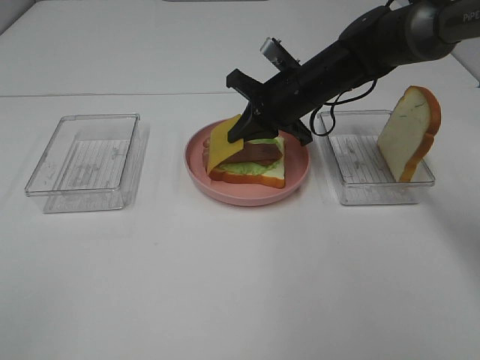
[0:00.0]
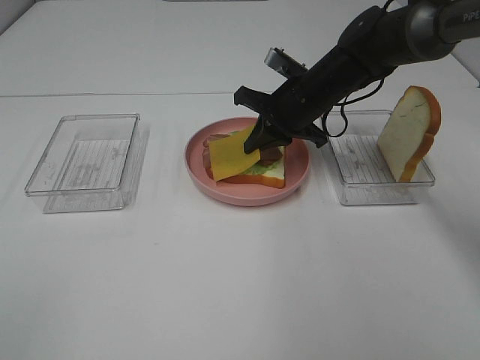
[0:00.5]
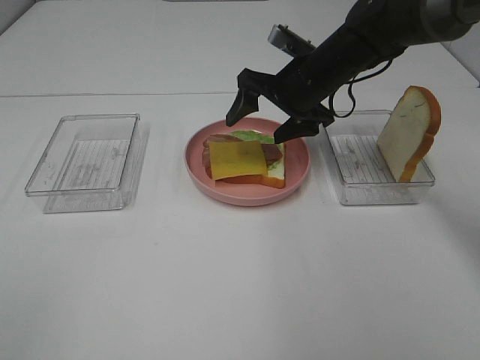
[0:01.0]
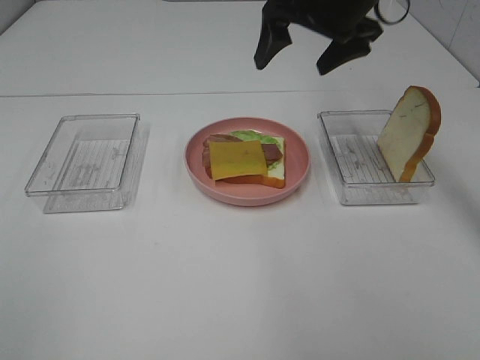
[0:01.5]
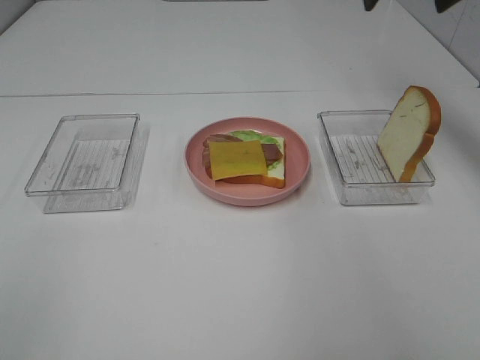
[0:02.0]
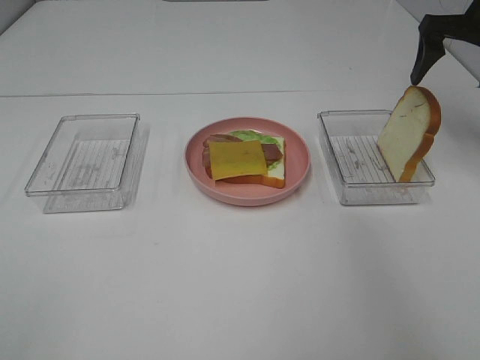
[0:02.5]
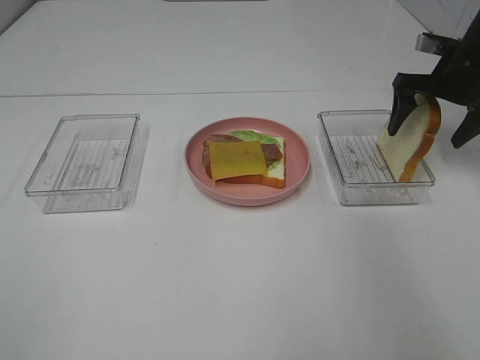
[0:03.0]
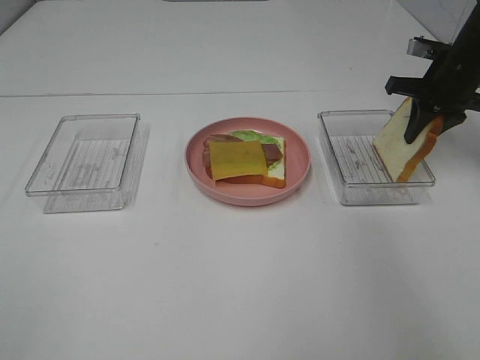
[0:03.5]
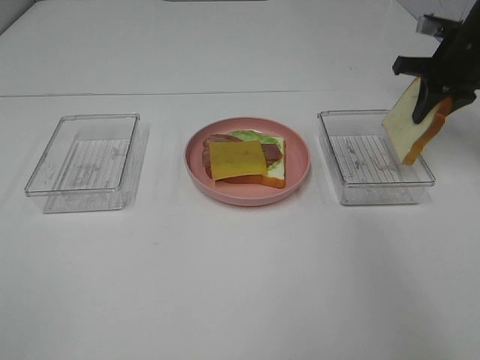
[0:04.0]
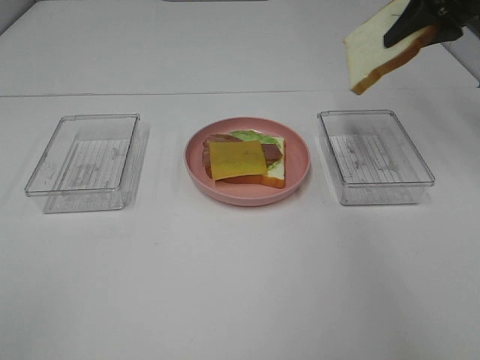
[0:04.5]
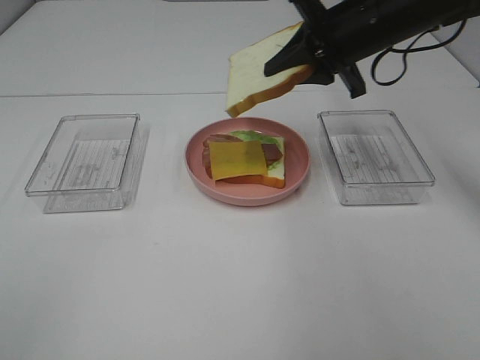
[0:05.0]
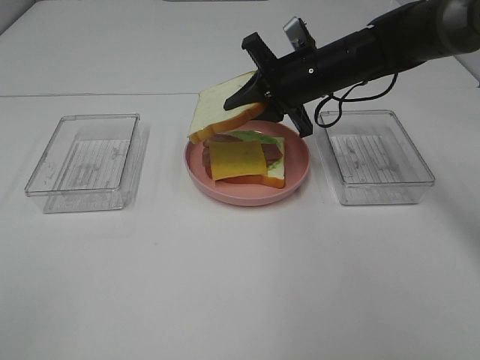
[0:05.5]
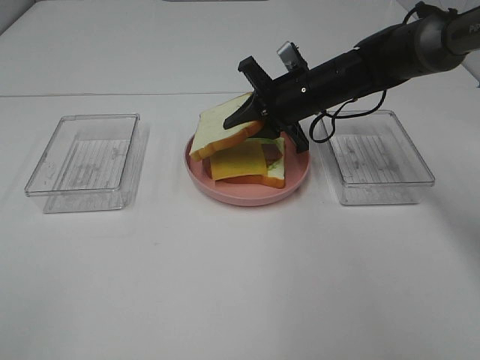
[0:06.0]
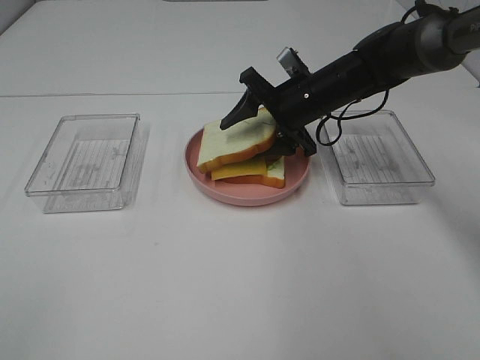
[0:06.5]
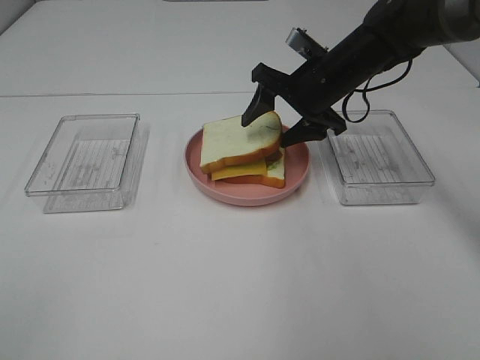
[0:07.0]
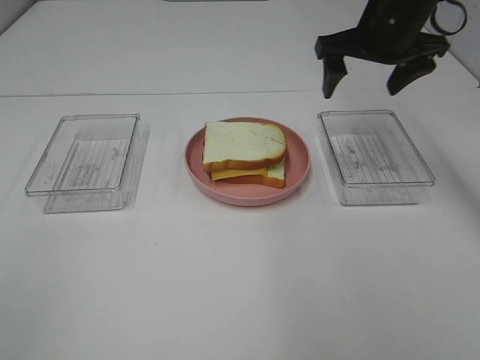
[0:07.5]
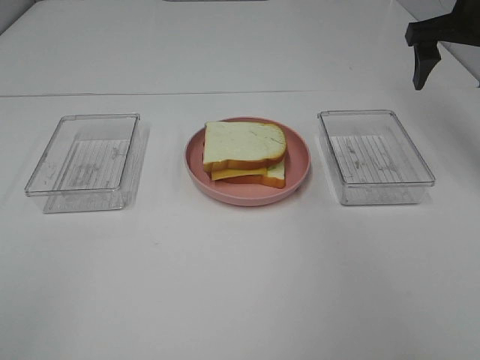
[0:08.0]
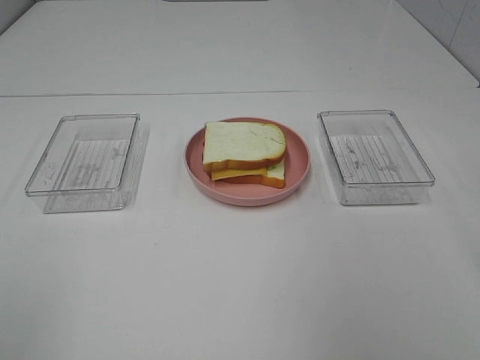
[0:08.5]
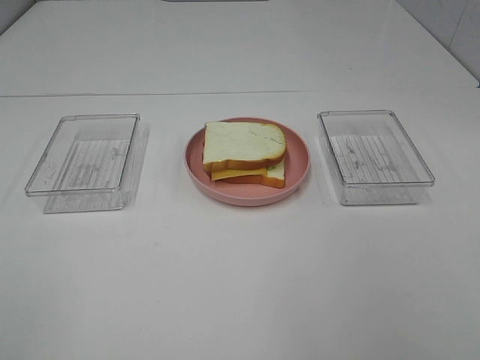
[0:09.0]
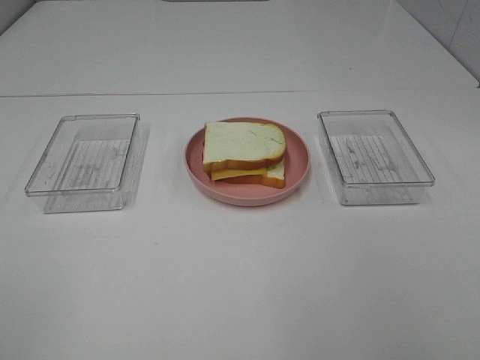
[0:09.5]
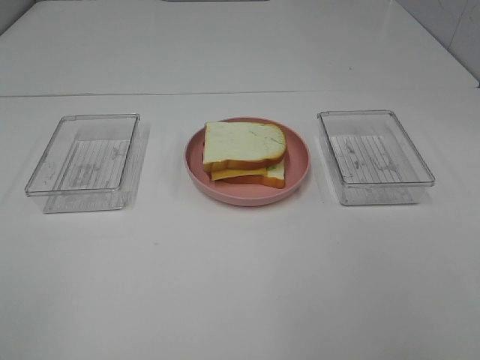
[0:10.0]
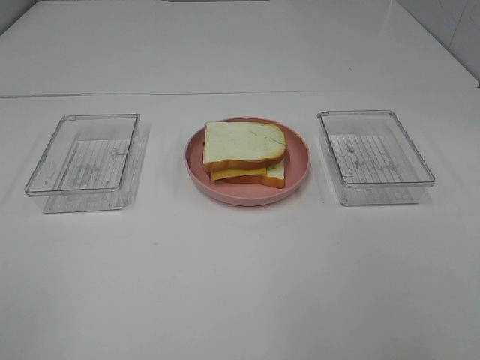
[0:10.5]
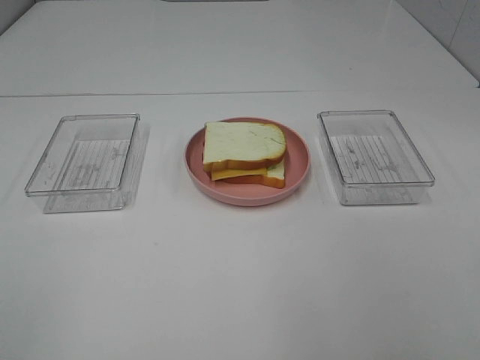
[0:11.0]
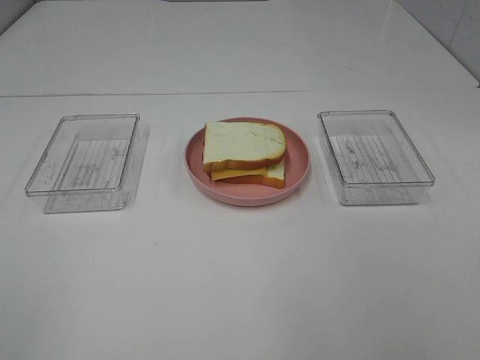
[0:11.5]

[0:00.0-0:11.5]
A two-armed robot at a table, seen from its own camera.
Task of the whole recording: Make sandwiches.
Step, 1.5 to 3.5 s: Right hand:grab the bread slice.
Step, 4.0 to 7.0 s: Right hand:place the bread slice on the cheese slice.
0.0 to 2.0 s: The right gripper shifts about 25 cm upward and to the right, and opens.
2.0 to 4.0 s: The right gripper heads downward and to the right, covering roughly 15 cm, and closes up.
4.0 to 6.0 s: The right gripper goes some 20 cm to the left.
6.0 to 7.5 s: The right gripper moves upward and to the right, about 15 cm, and opens up.
7.5 to 9.5 s: The right gripper is displaced backward by about 40 cm.
9.5 to 11.5 s: Both grippers stay about where they are.

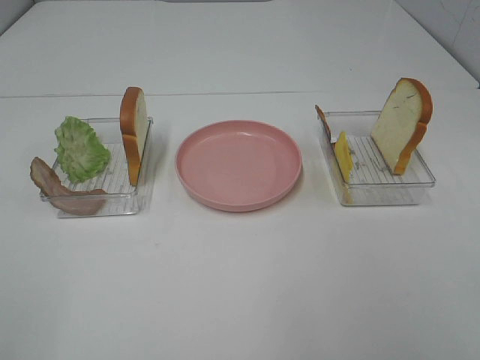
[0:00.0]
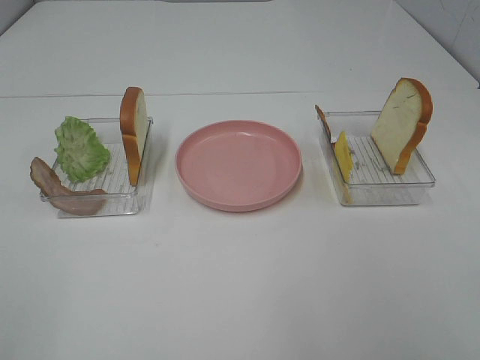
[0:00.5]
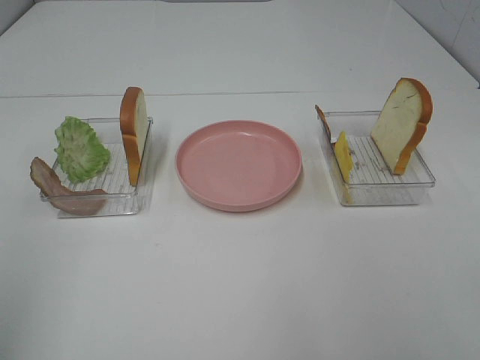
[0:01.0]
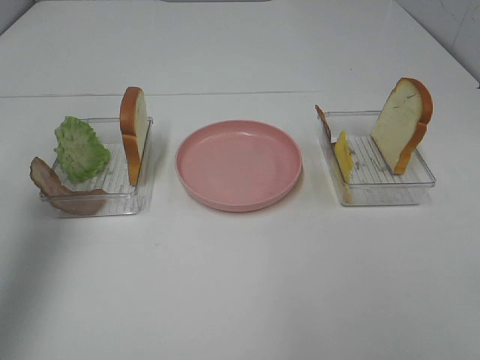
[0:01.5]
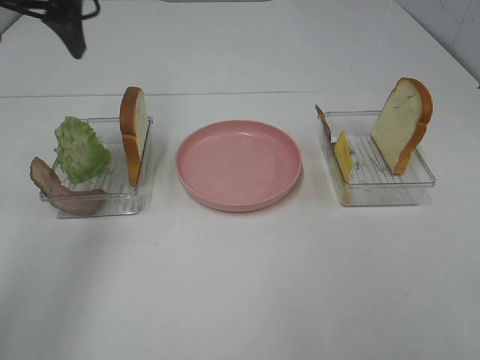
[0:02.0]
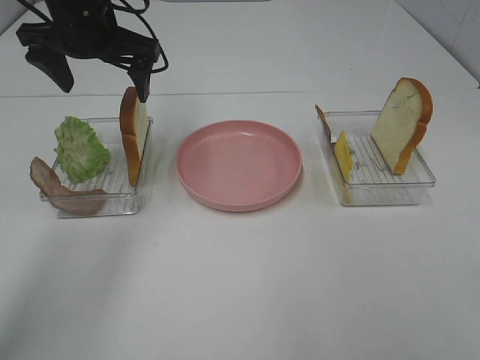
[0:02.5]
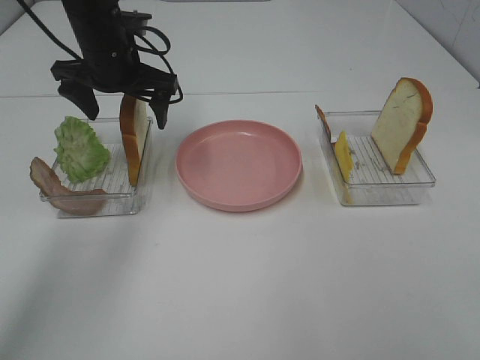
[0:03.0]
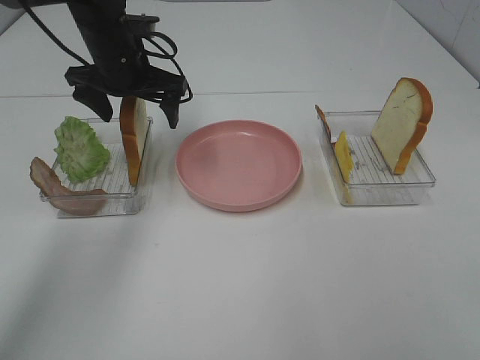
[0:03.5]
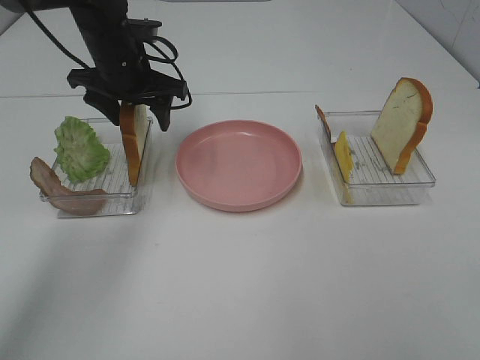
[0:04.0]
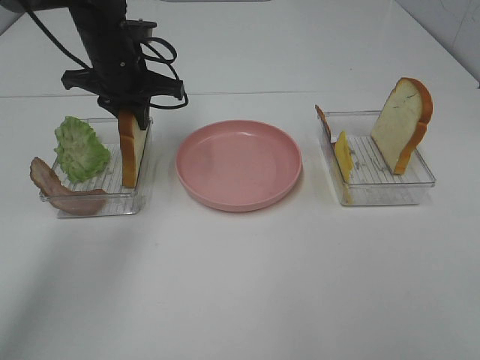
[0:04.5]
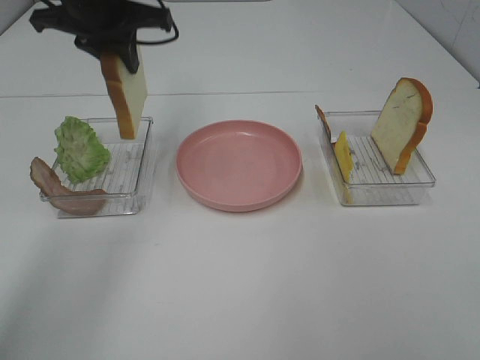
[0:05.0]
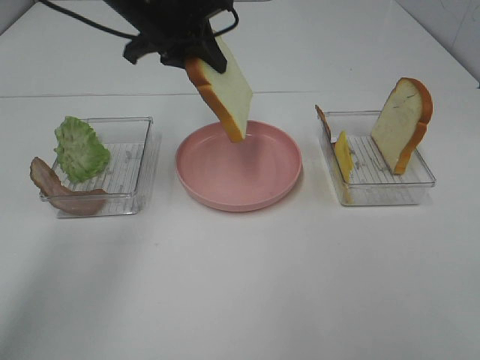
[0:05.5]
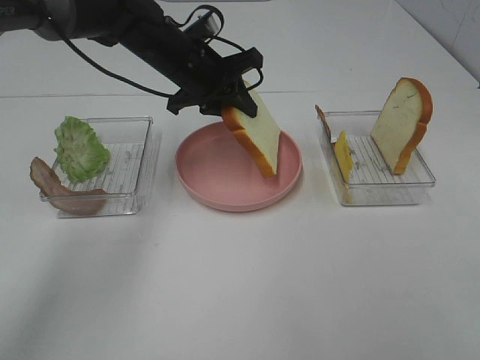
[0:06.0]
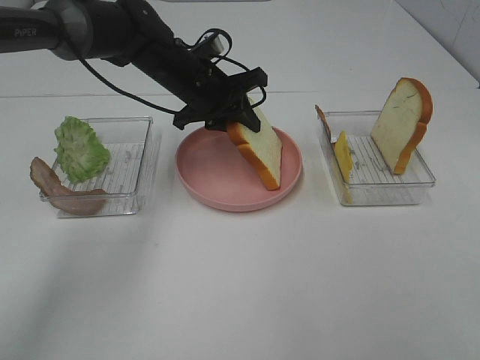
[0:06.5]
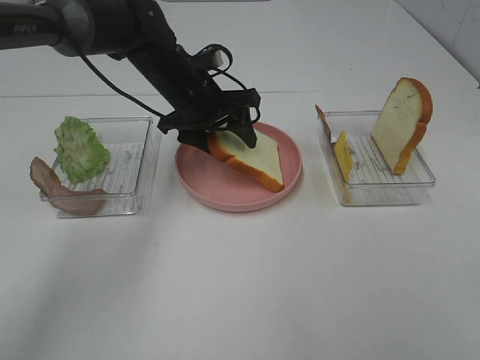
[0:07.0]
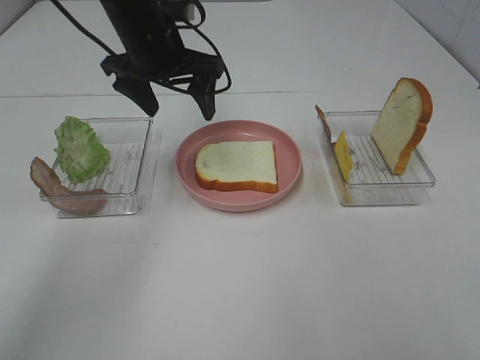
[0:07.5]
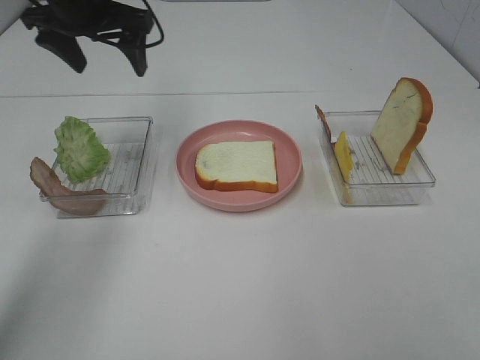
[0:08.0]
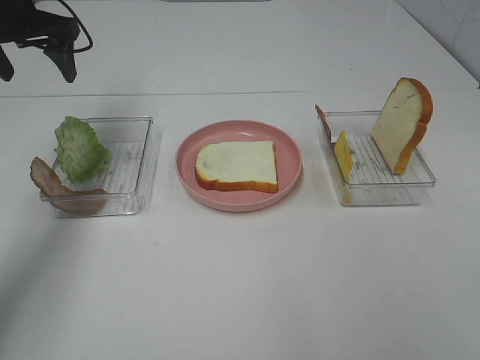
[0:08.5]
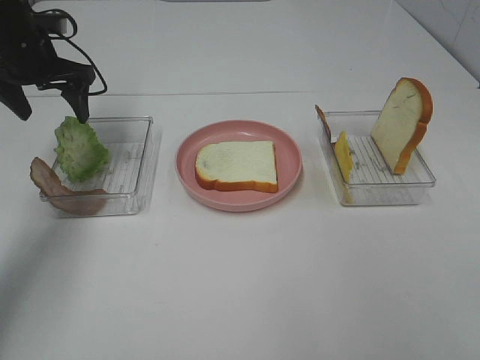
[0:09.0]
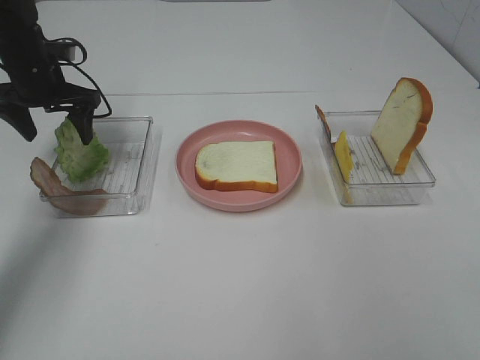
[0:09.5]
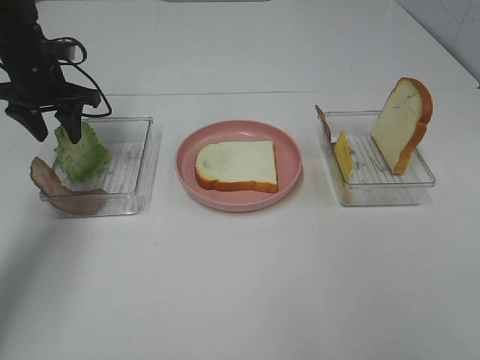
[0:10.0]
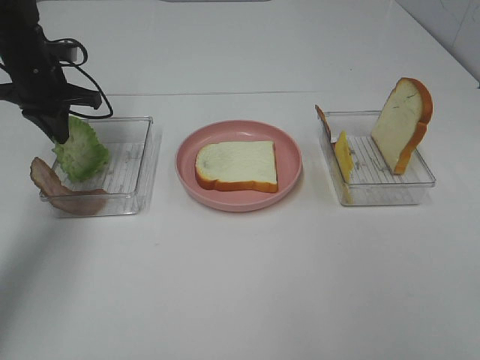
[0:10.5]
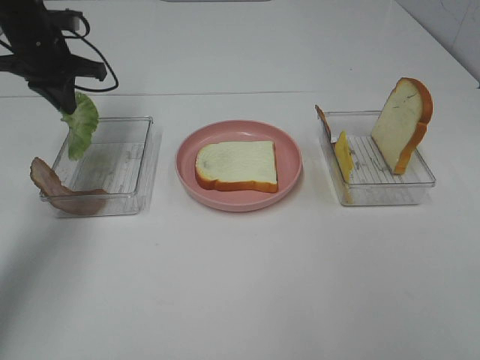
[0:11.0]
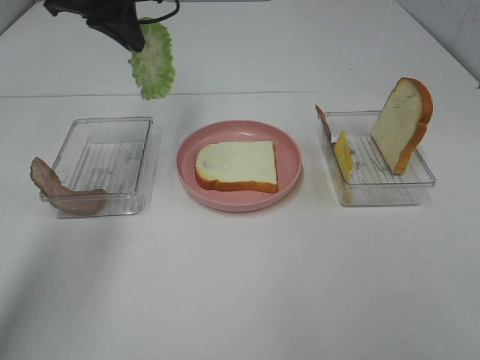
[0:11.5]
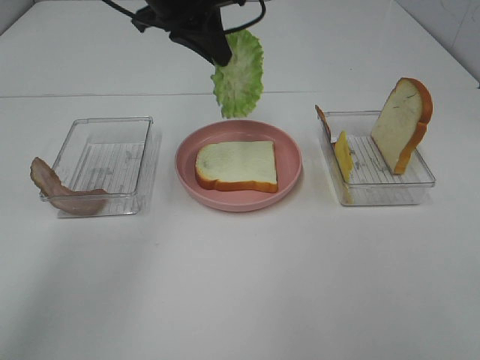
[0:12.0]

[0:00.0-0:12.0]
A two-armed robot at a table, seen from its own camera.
Task of the whole recording: Make sandwiches.
Step, 0.0 to 4.0 s: Left hand:grab the bread slice.
Step, 4.5 to 7.0 s: Left hand:place the bread slice on the plate.
Step, 7.5 to 10.5 s: Left hand:grab the lettuce slice.
0.0 to 2.0 s: The left gripper heads forward, covering approximately 40 cm.
2.0 to 4.0 s: The left gripper moves downward, to the right and forward, roughly 15 cm.
4.0 to 6.0 s: The left gripper travels to the right by approximately 10 cm, goes upward and returns, roughly 10 cm each way, and closes up.
6.0 to 8.0 s: The left gripper is displaced to the left and upward by about 15 cm, and opens up.
8.0 to 10.0 s: The left gripper heads downward and to the left, covering roughly 15 cm.
10.0 to 12.0 s: The left gripper shifts roughly 25 cm to the right and upward, and closes its fingers.

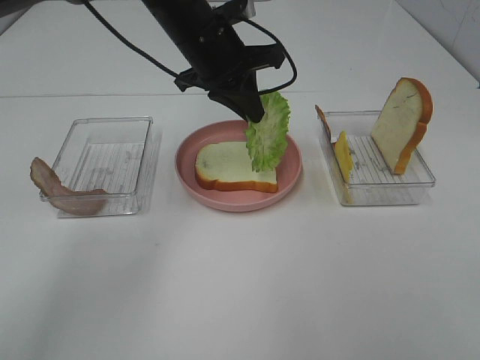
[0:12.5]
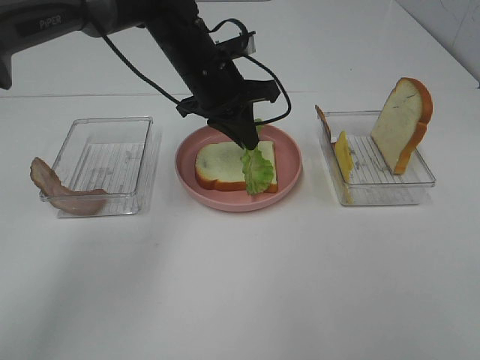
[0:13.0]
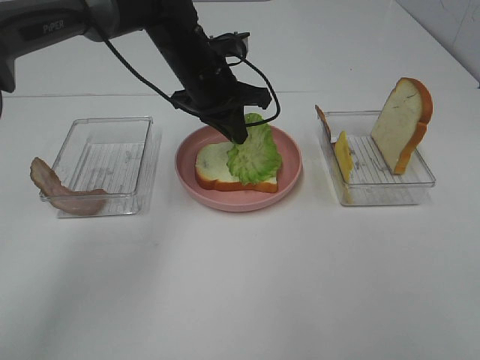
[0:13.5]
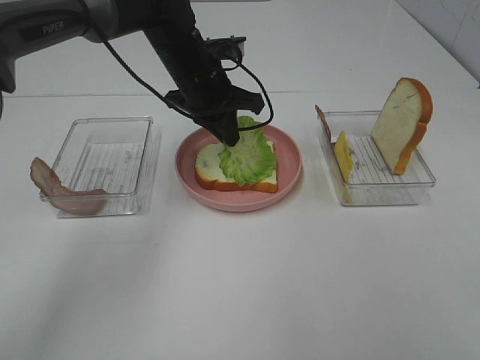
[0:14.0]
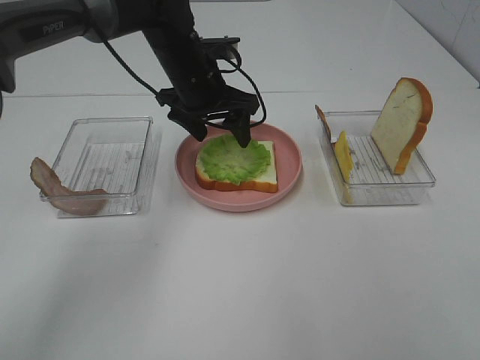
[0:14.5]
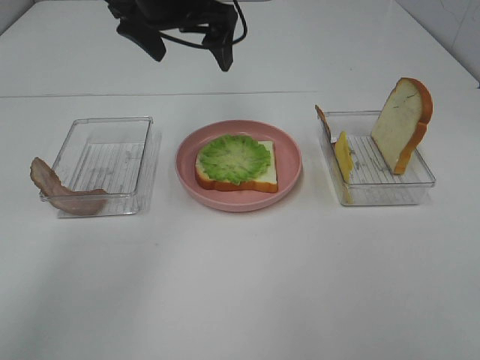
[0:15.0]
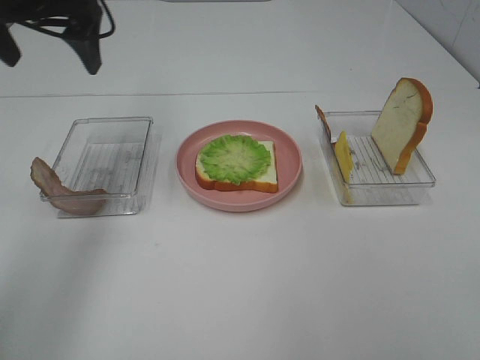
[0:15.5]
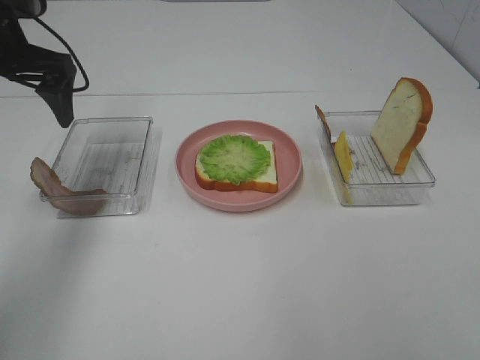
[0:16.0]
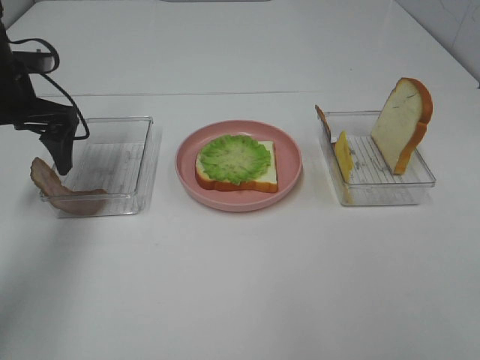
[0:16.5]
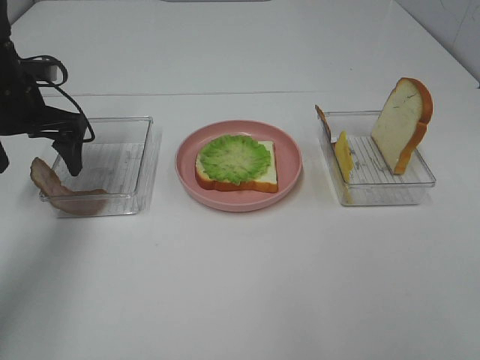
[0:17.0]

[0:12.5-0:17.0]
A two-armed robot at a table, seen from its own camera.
Task of the whole recording: Make sandwiches.
Step, 12.5 to 14.5 s: Left hand:place the lettuce slice on the bread slice.
12.5 to 14.5 s: The left gripper is displaced downward by approximately 5 cm, and opens.
14.5 to 17.0 s: The left gripper heads to the left, covering some 20 cm.
